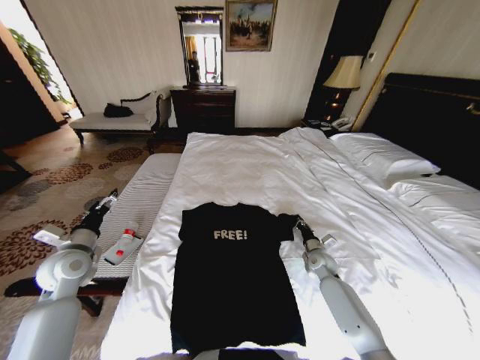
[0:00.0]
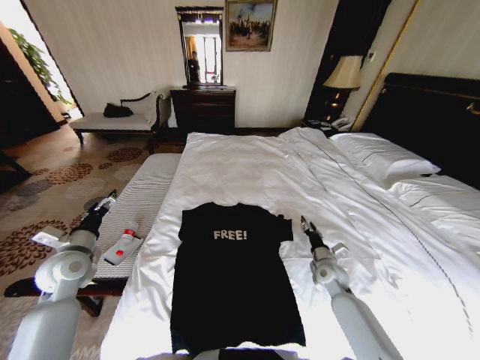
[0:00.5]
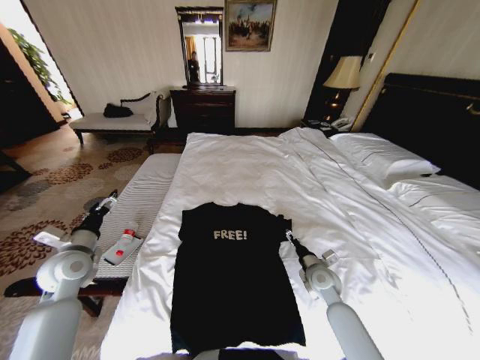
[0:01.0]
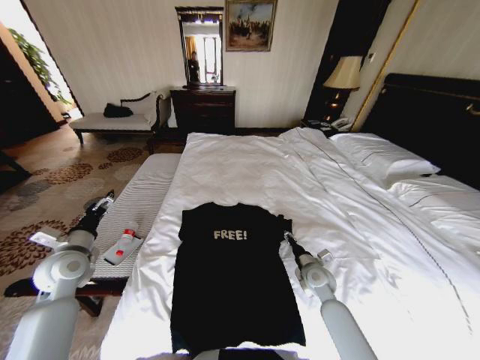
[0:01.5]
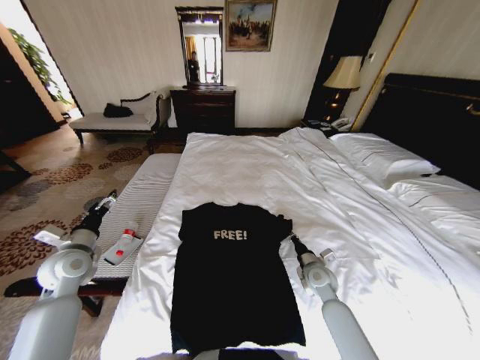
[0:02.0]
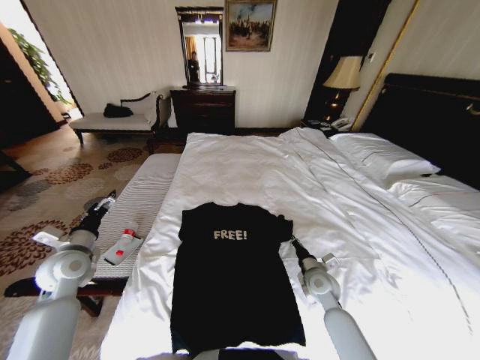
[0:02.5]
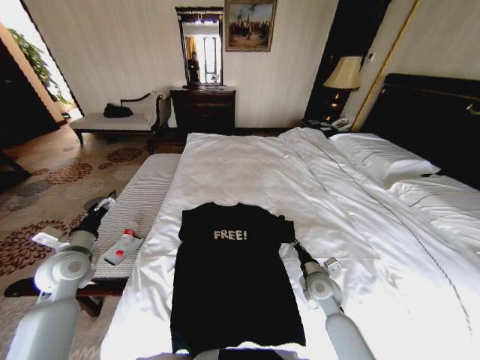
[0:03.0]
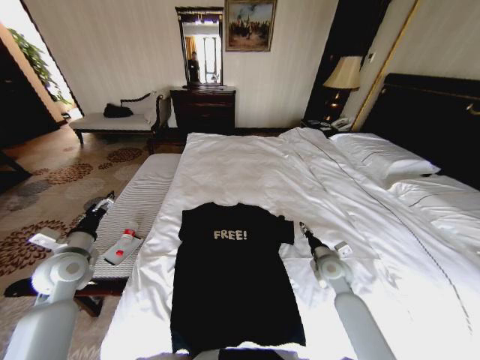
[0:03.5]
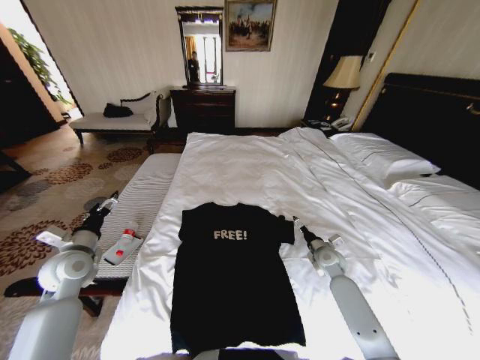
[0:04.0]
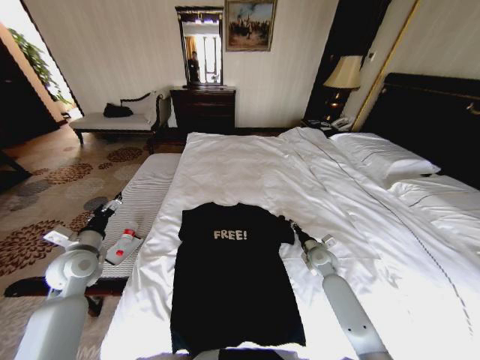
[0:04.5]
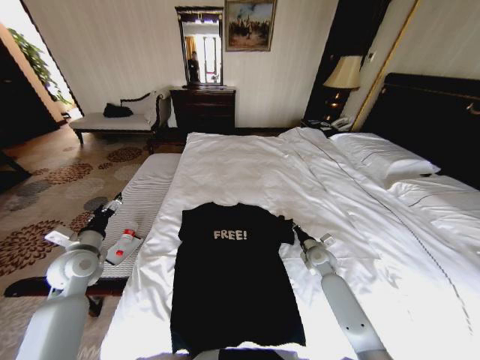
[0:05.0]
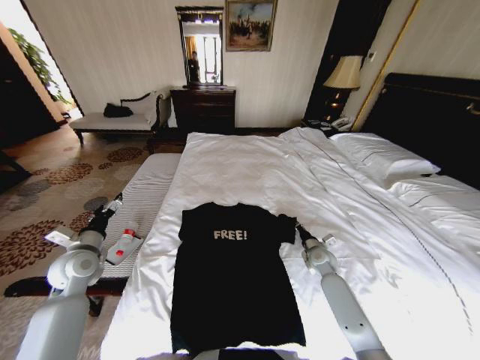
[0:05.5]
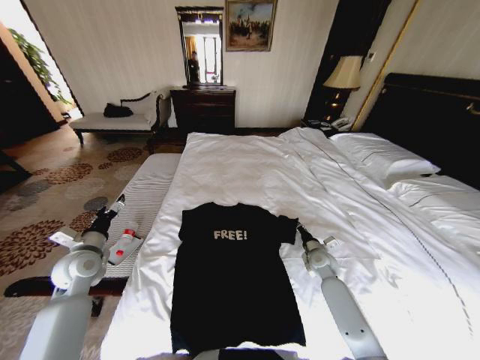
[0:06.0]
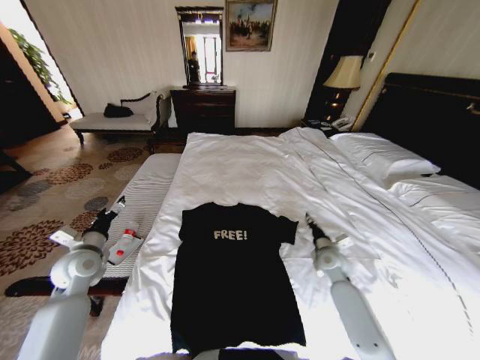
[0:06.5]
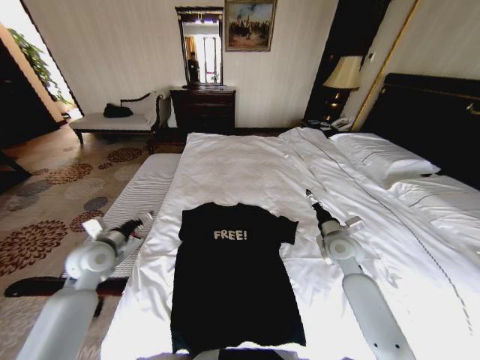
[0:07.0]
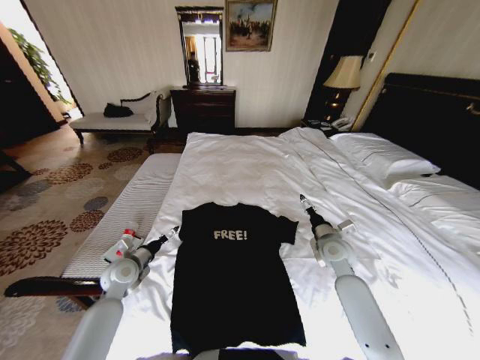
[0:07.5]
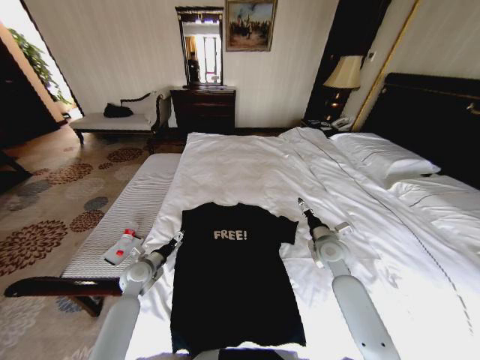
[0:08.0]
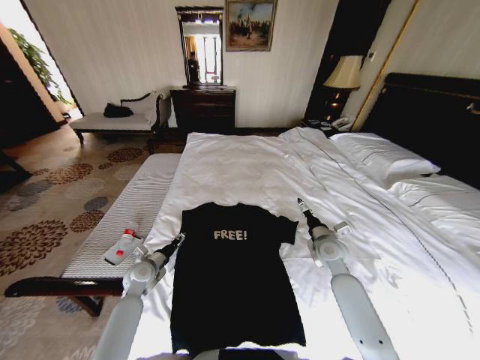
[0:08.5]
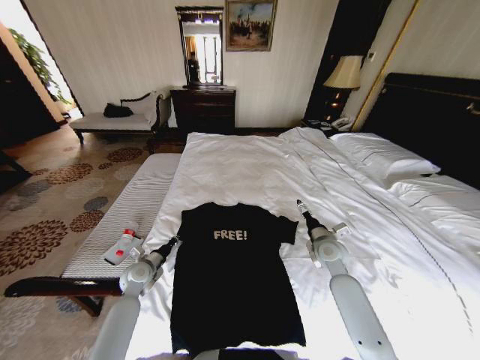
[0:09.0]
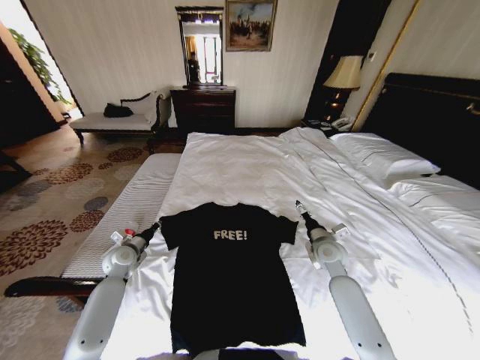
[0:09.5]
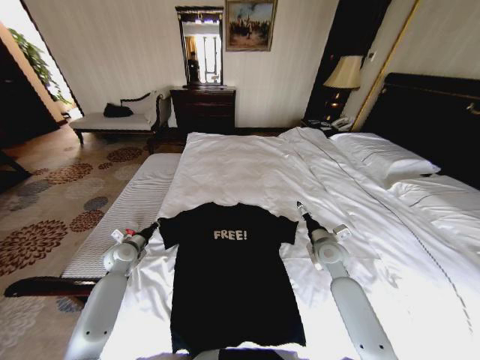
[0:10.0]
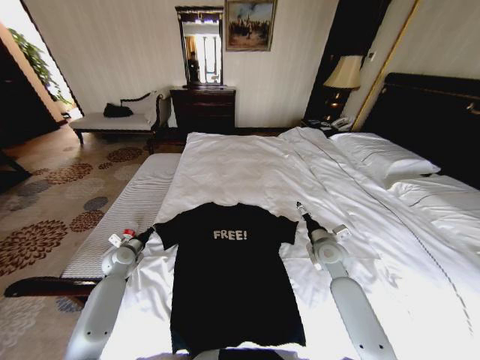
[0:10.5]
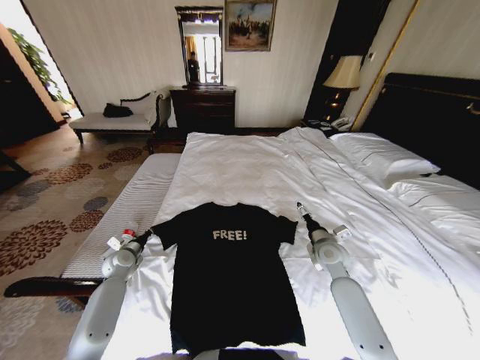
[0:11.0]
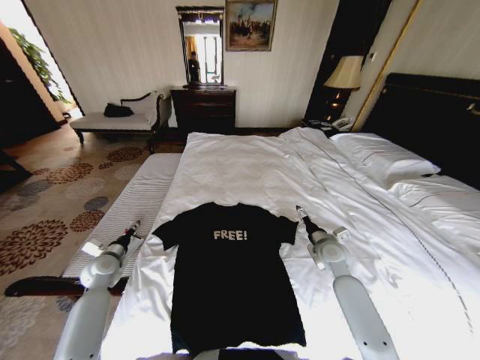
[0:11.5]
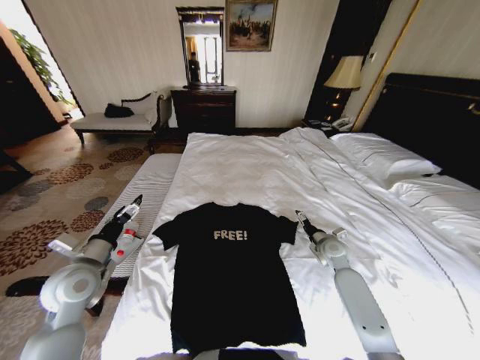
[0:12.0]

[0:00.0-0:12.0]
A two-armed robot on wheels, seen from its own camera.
Task of the whole recording: Fold the clothes on the bed.
0:00.0 to 0:02.0: The right gripper travels backward and to the left by approximately 10 cm, and opens, then closes again.
0:02.0 to 0:04.0: The right gripper shifts approximately 10 cm to the right and forward, and opens.
0:04.0 to 0:06.0: The right gripper closes up.
0:06.0 to 0:08.0: The right gripper travels upward by some 10 cm, and opens its fingers. Meanwhile the left gripper is displaced downward and to the right by about 15 cm.
0:08.0 to 0:10.0: The left gripper is displaced to the left and forward by approximately 10 cm, and closes its fingers.
0:10.0 to 0:12.0: The right gripper shifts by about 5 cm. The left gripper travels backward and upward by about 20 cm, and opens.

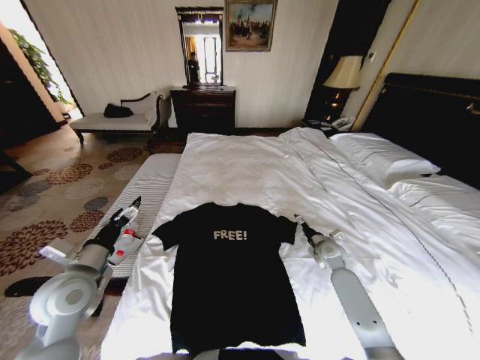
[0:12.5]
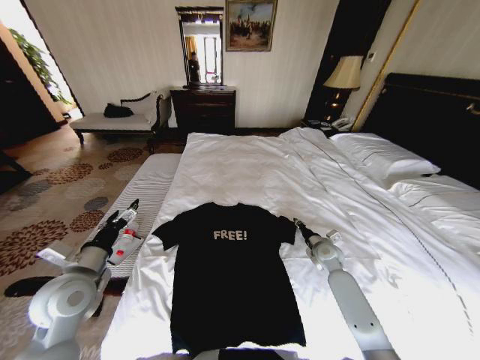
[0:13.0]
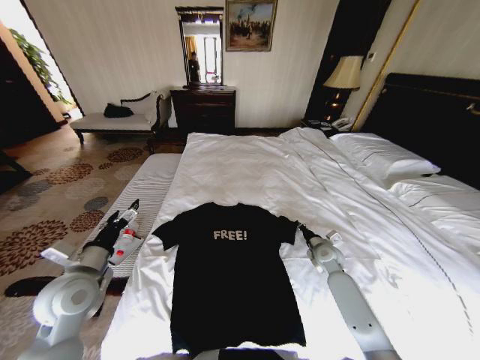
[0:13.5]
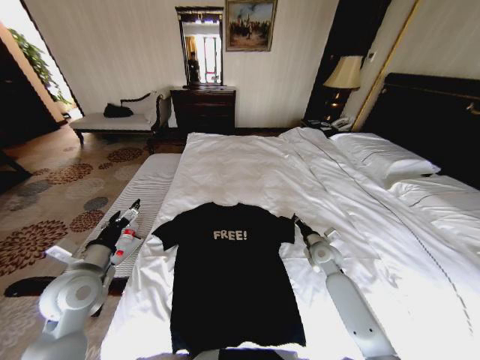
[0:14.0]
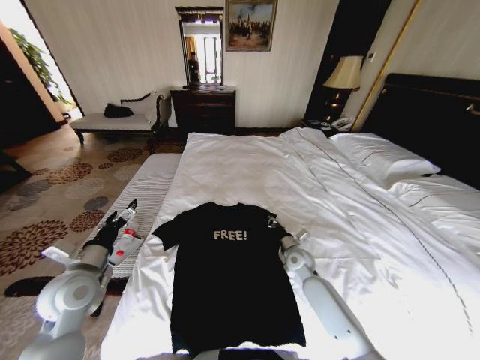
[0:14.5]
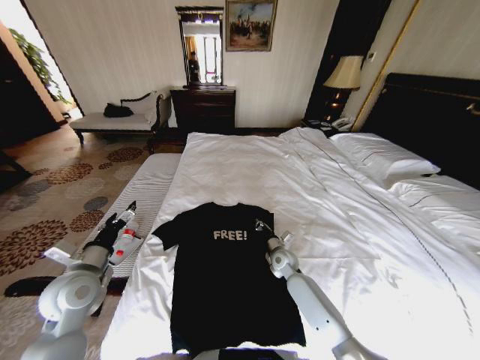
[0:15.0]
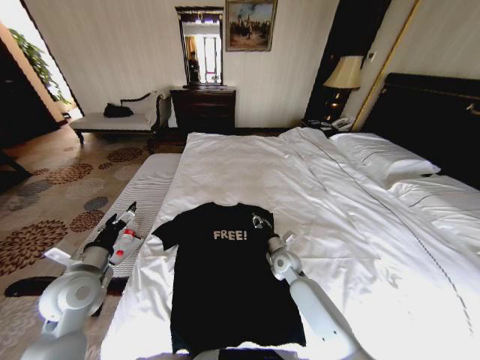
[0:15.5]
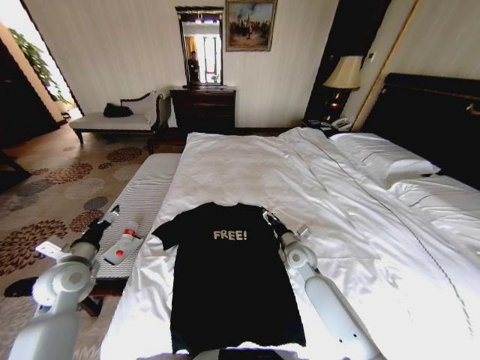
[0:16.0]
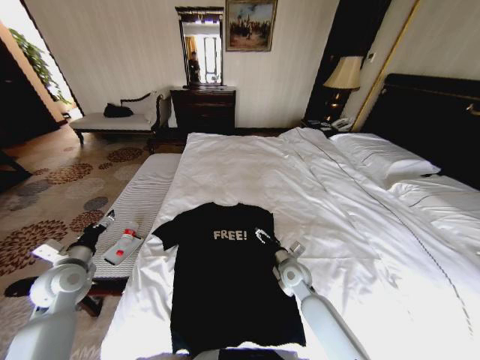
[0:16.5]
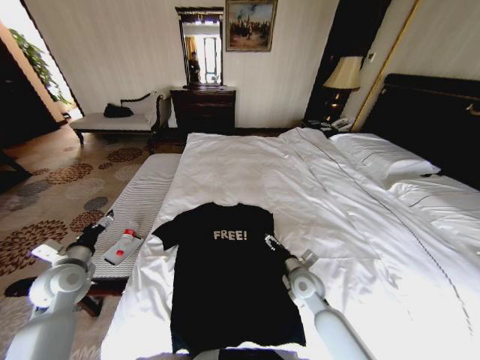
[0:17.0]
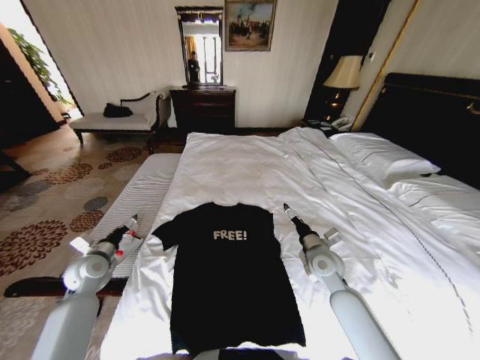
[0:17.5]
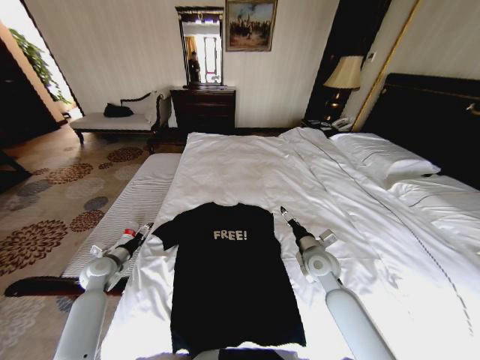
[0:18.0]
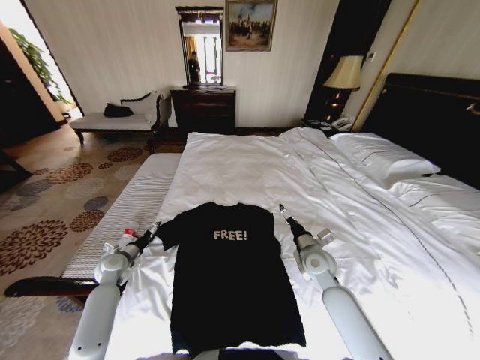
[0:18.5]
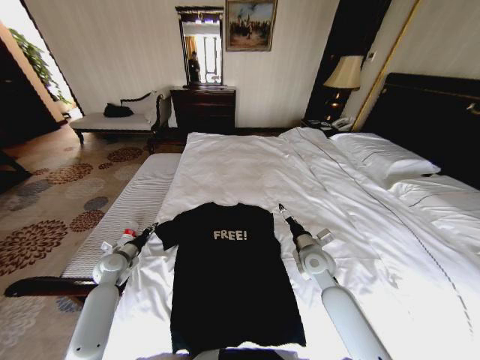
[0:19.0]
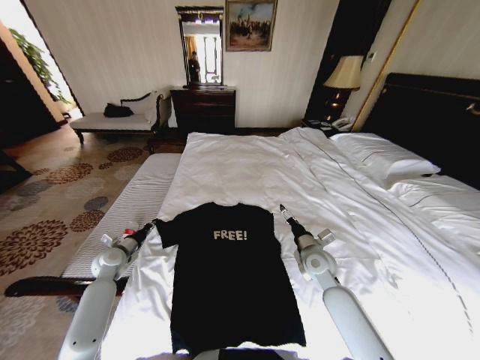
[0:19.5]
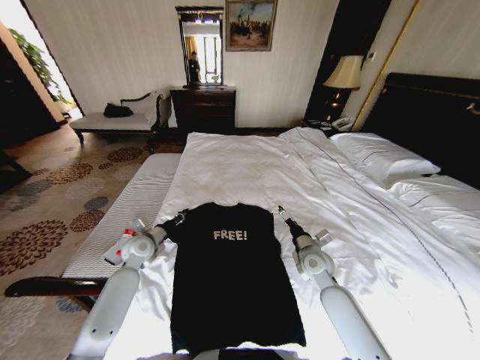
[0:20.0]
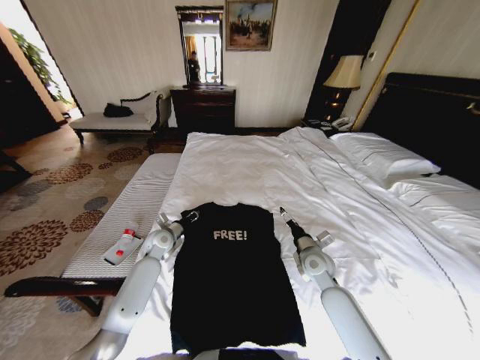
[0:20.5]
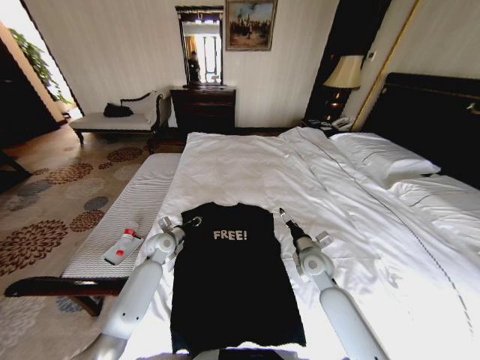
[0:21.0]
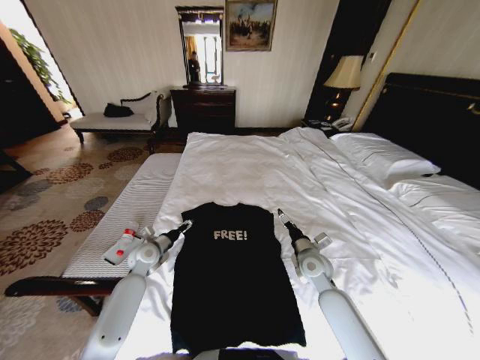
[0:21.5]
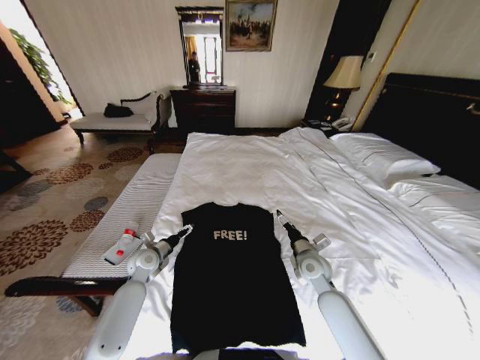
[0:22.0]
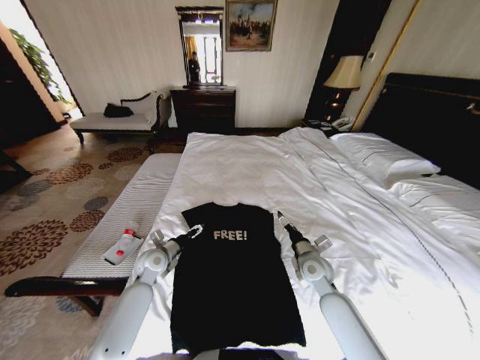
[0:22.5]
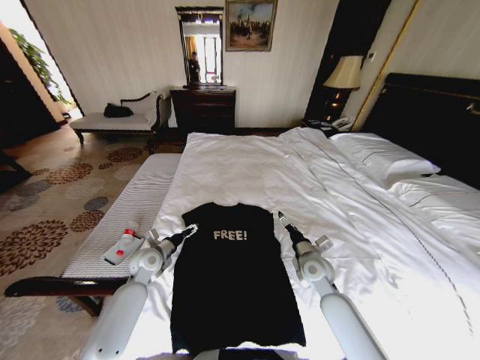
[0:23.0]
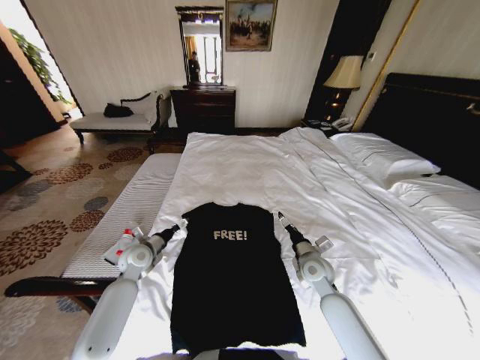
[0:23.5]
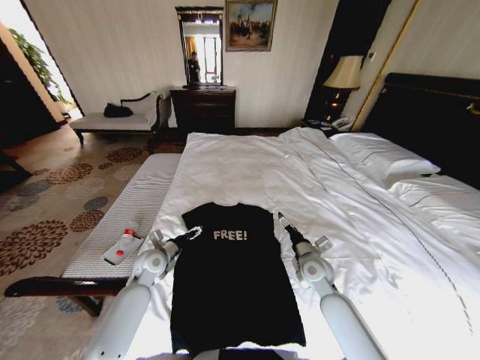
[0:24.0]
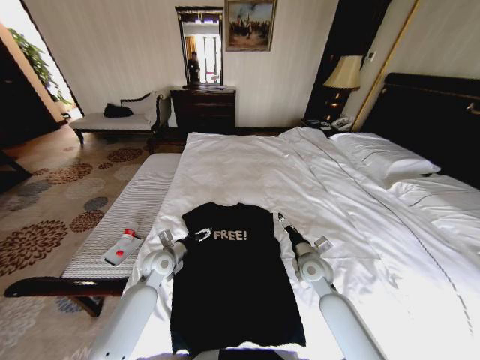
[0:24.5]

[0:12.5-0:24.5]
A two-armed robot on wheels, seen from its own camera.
Task of the whole recording: Fold the clothes on the bed.
0:12.5 to 0:14.5: The right gripper goes approximately 10 cm to the left, and closes.
0:14.5 to 0:16.5: The right gripper shifts approximately 5 cm backward, and opens its fingers; the left gripper shifts approximately 10 cm to the left.
0:16.5 to 0:18.5: The right gripper goes approximately 10 cm upward and to the right. The left gripper moves downward and forward, roughly 15 cm.
0:18.5 to 0:20.5: The left gripper is displaced to the right and forward by approximately 15 cm, and closes its fingers.
0:20.5 to 0:22.5: The left gripper moves backward, about 5 cm, and opens up.

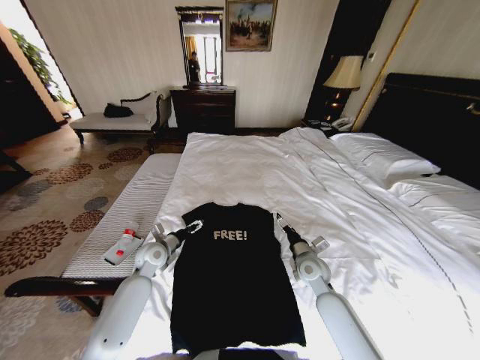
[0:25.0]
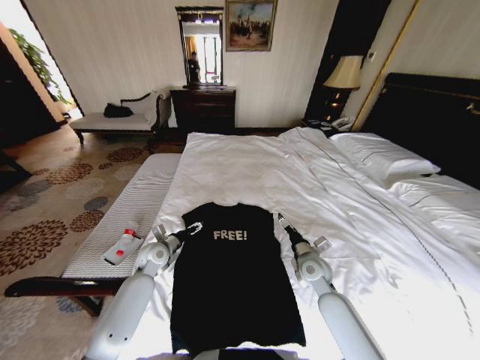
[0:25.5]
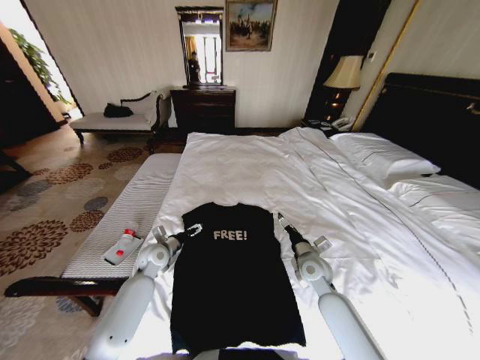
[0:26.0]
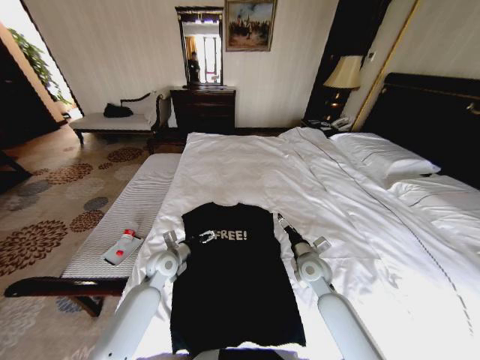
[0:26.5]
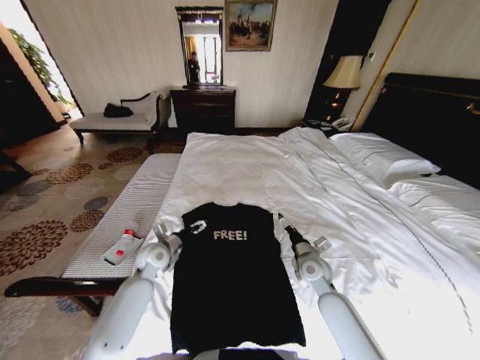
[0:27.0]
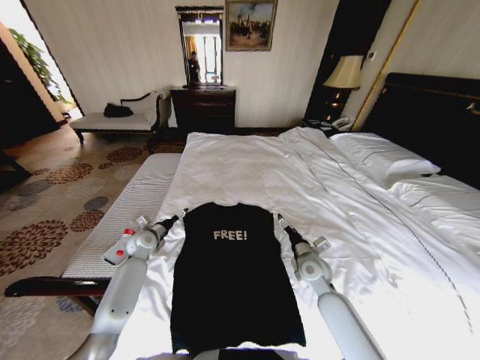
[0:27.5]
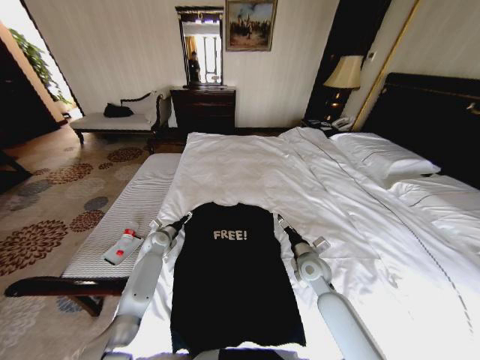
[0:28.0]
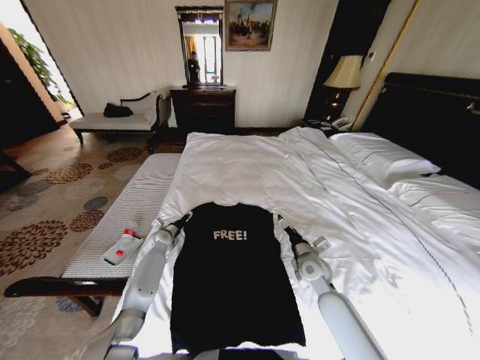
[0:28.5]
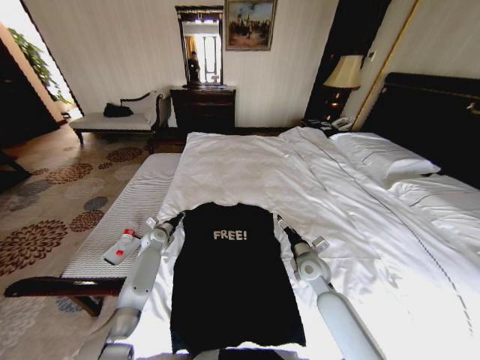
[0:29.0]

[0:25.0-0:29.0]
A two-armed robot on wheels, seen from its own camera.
Task of the whole recording: Fold the clothes on the bed.
0:25.0 to 0:27.0: The grippers move only a little.
0:27.0 to 0:29.0: The left gripper is displaced forward, downward and to the left by some 15 cm, and closes up.
